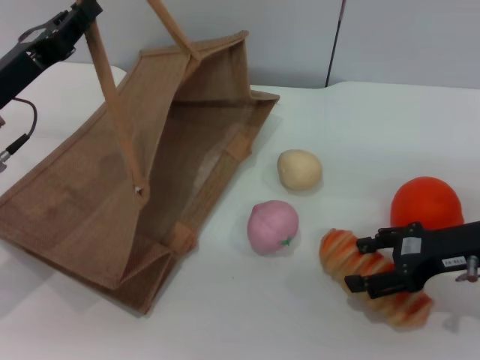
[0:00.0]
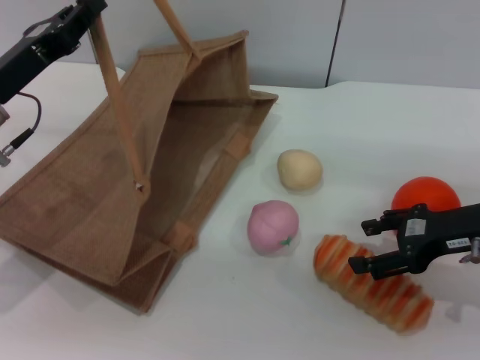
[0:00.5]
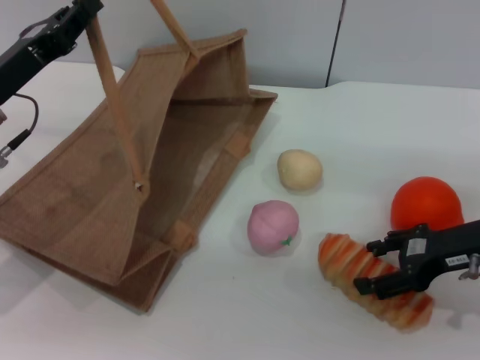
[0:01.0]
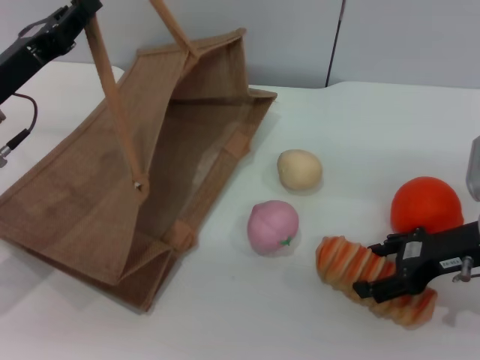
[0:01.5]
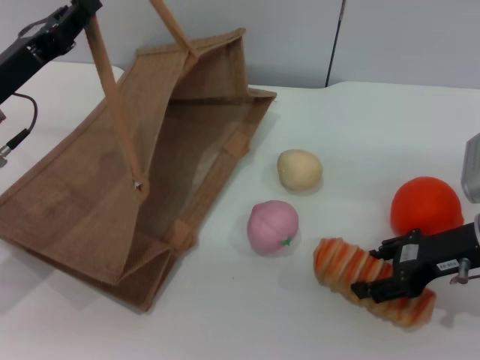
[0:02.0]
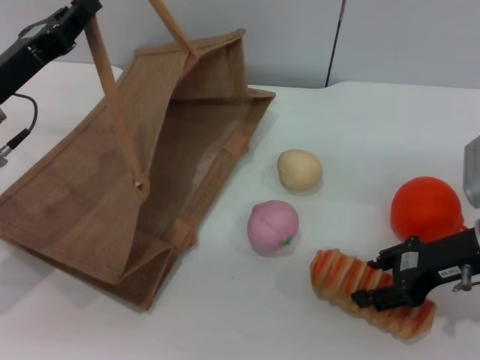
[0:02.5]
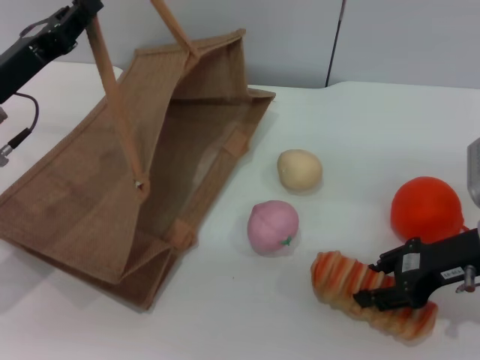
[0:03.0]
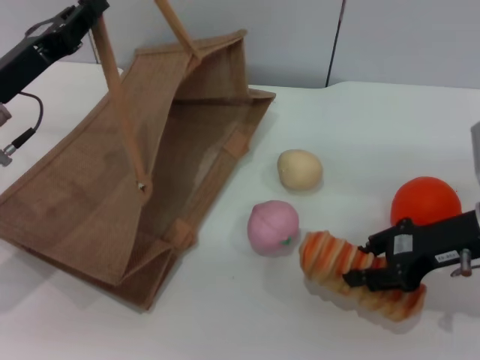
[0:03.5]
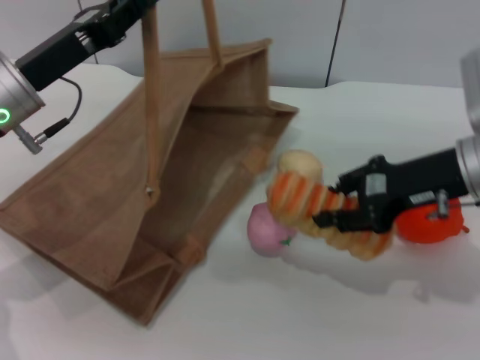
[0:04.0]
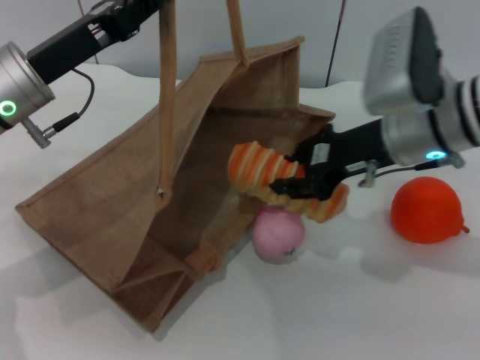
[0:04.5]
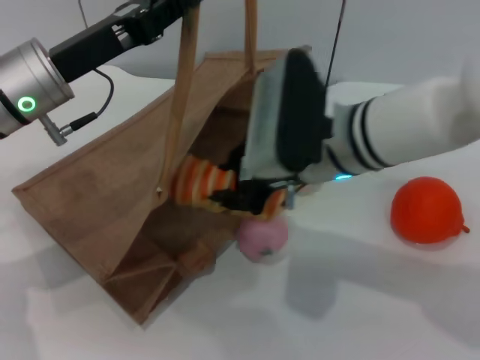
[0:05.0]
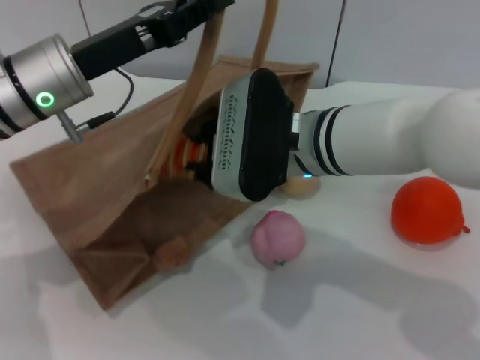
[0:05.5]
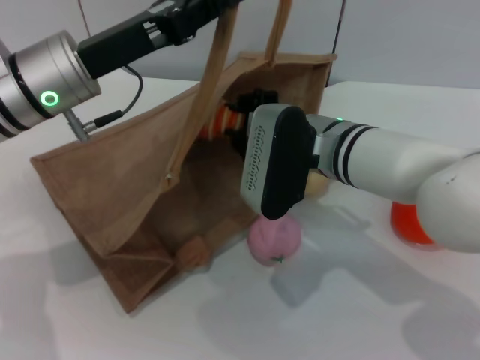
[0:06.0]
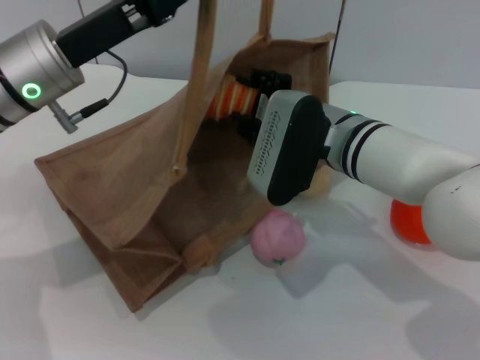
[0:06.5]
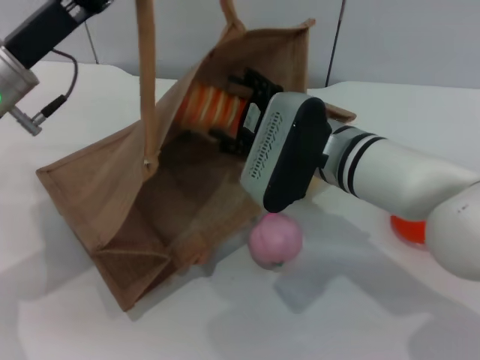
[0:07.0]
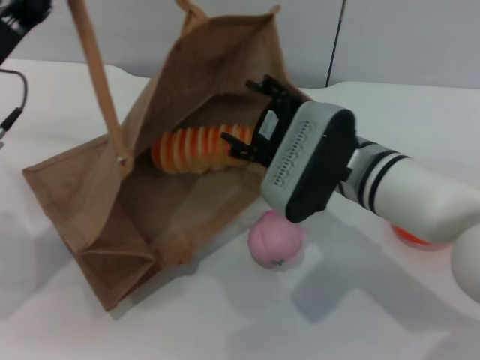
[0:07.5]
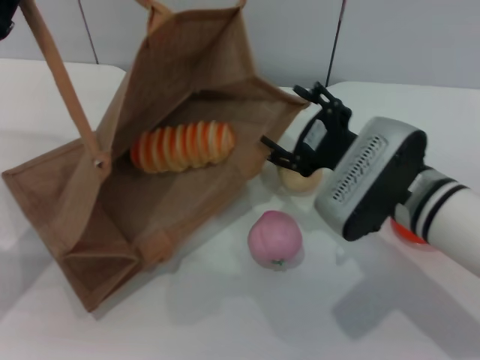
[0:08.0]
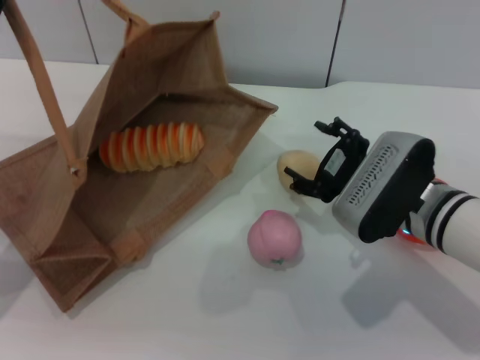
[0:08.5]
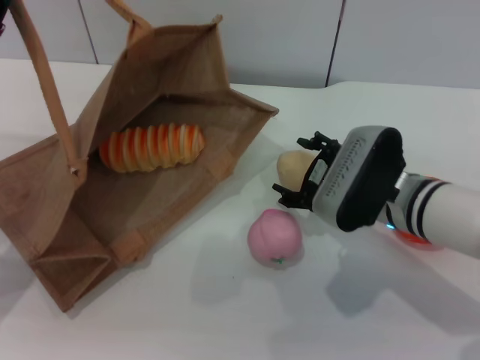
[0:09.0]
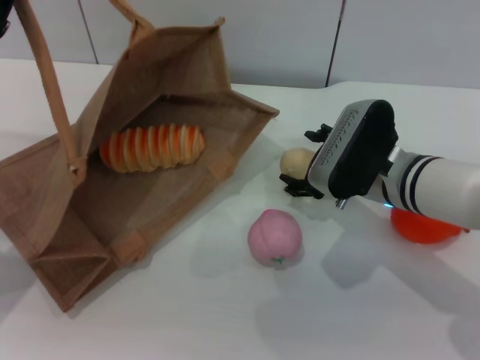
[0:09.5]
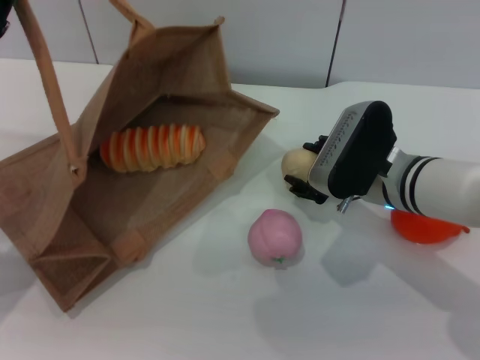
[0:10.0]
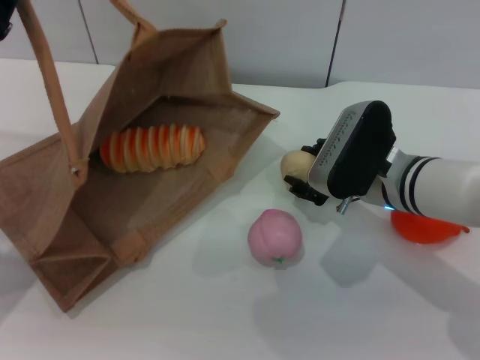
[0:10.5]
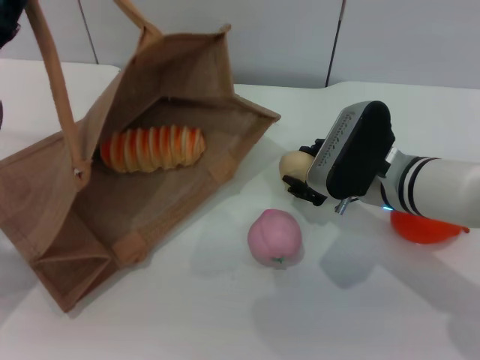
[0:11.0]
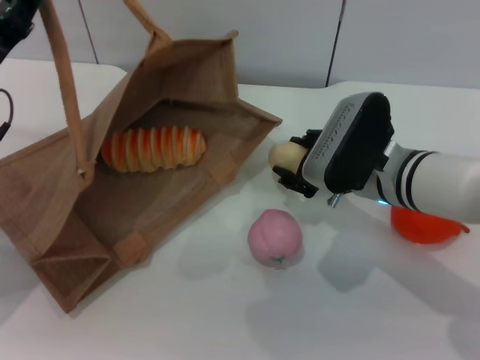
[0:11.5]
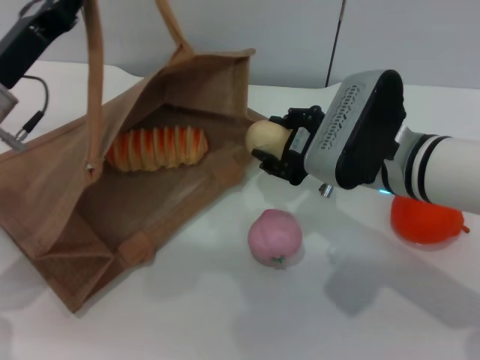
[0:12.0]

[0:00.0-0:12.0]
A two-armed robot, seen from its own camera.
Task of the whole recording: pick up the bread and egg yolk pastry from the table and place it in the brown handbag.
Step, 0:00.0 to 0:03.0: Pick up the bread with the right gripper.
Step, 0:03.5 to 0:07.5: Place the bread into the woven bag with the right gripper.
Step, 0:08.0 to 0:11.5: Pick up the egg yolk pastry with the right gripper.
0:00.0 to 0:02.0: There are only small adjustments of the grippers.
0:02.0 to 0:04.0: The right gripper shifts approximately 5 cm upward, and closes up.
0:04.0 to 0:06.0: The left gripper shifts approximately 5 cm to the right; the right gripper travels to the left by about 15 cm.
0:06.0 to 0:08.0: The right gripper moves to the right, roughly 5 cm, and opens up, while the left gripper heads to the left, covering some 10 cm.
0:08.0 to 0:10.0: The right gripper moves approximately 5 cm.
0:10.0 to 0:12.0: The right gripper goes some 5 cm upward.

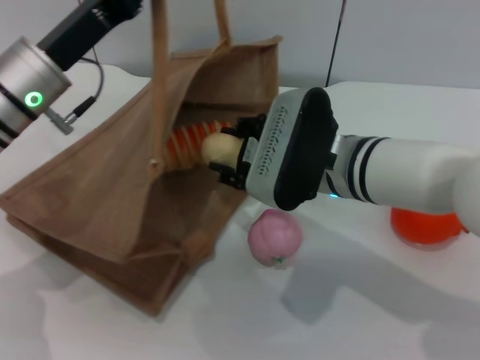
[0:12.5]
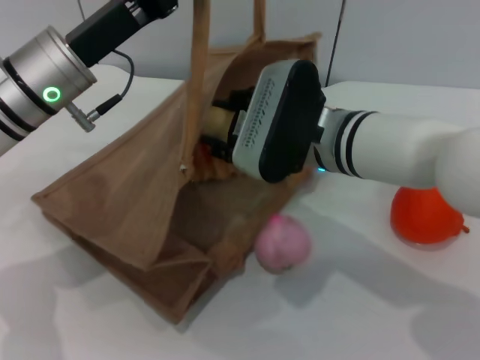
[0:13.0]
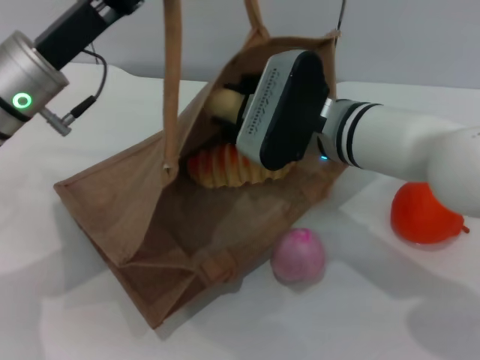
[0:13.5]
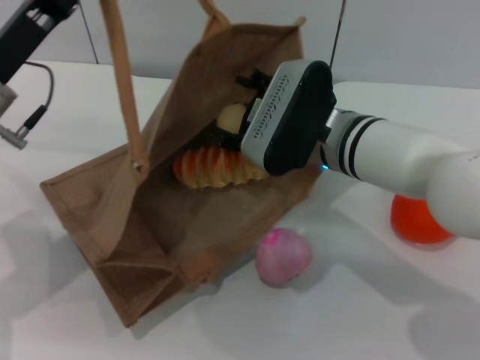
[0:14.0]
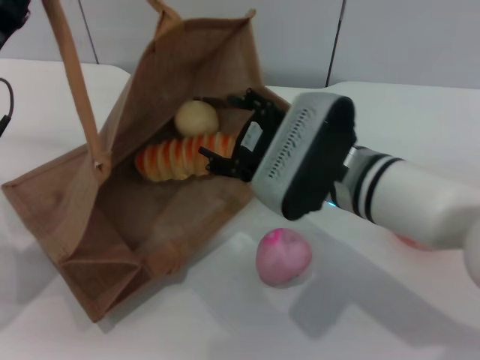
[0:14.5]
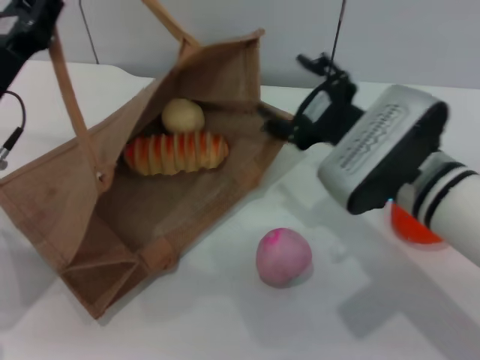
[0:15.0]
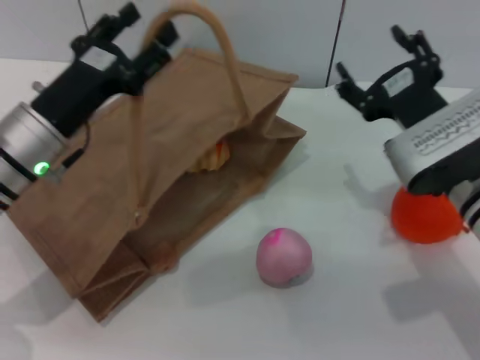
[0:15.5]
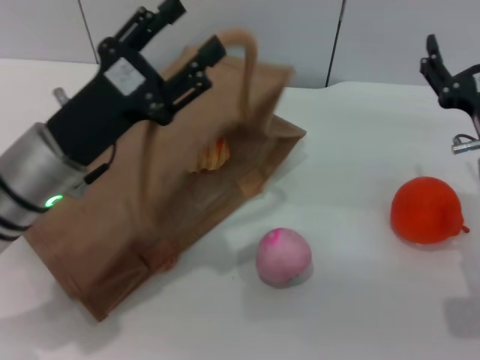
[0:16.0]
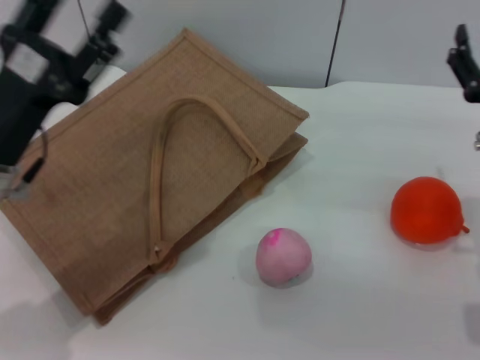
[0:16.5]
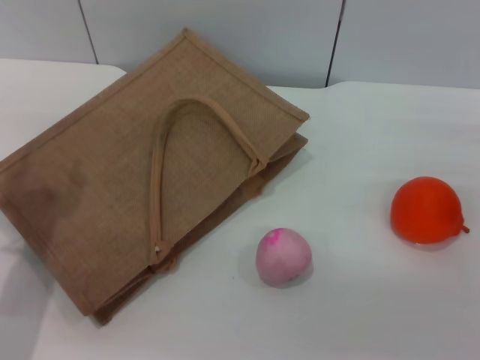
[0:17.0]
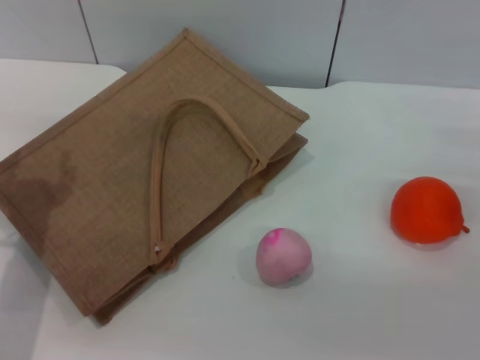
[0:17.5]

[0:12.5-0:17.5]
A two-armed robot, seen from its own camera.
Task of the whole recording: pick up the bread and egg yolk pastry from the table and place it in the brown handbag.
Step, 0:12.5 to 0:14.0: Place the egg yolk pastry into the woven bag with the right gripper.
Step, 0:14.5 to 0:16.0: Lower the woven bag with the left gripper to close it.
0:12.5 to 0:15.0: The right gripper travels to the right by roughly 5 cm, and opens. The left gripper is displaced to the left by roughly 5 cm.
0:15.0 to 0:17.5: The left gripper goes to the right and returns, approximately 10 cm each way, and opens its fingers. Meanwhile the right gripper goes roughly 15 cm to the right.

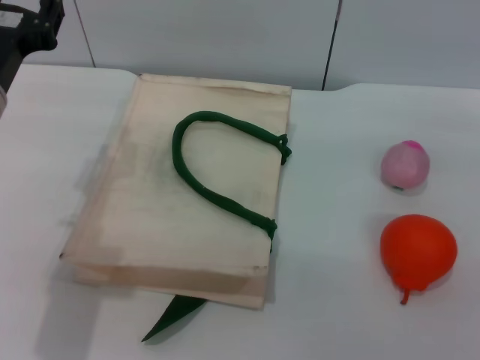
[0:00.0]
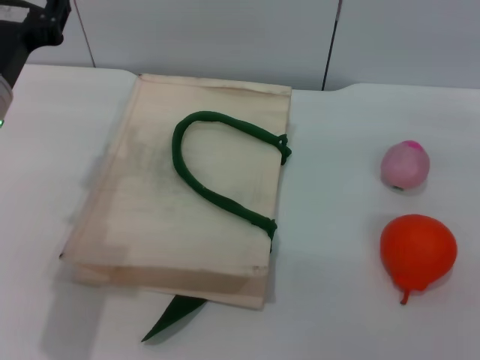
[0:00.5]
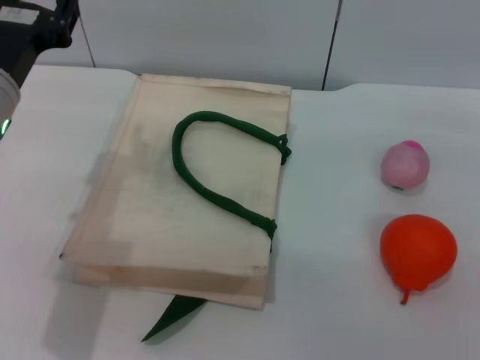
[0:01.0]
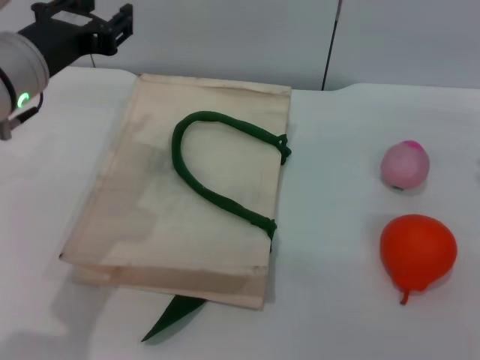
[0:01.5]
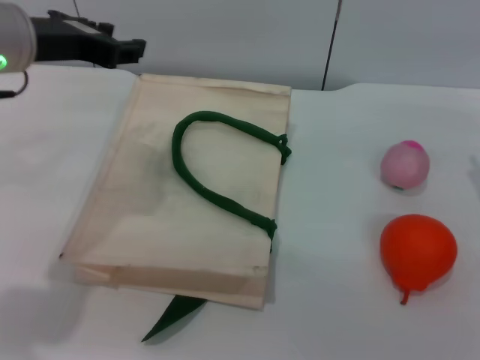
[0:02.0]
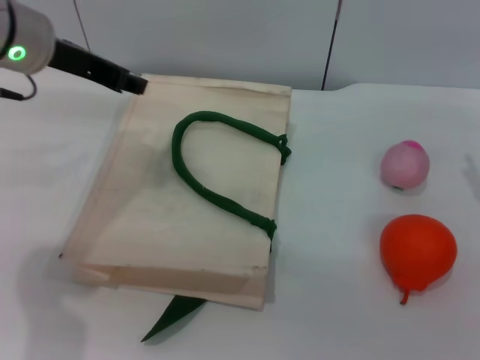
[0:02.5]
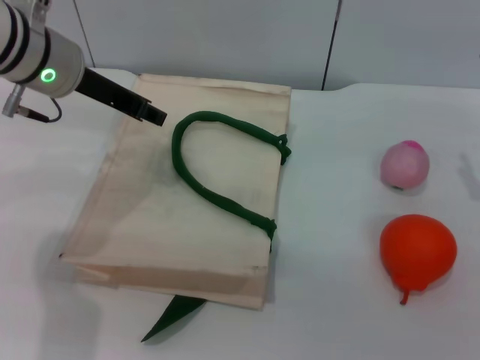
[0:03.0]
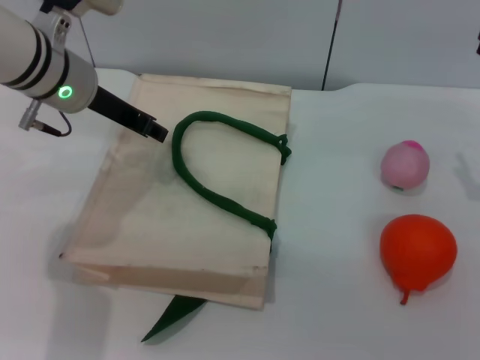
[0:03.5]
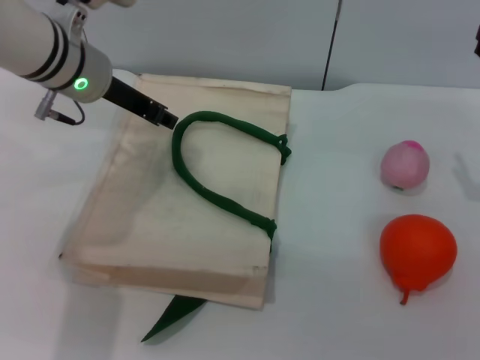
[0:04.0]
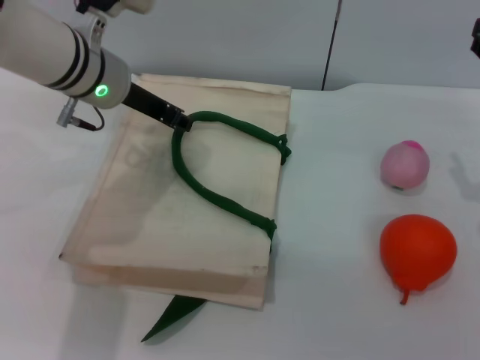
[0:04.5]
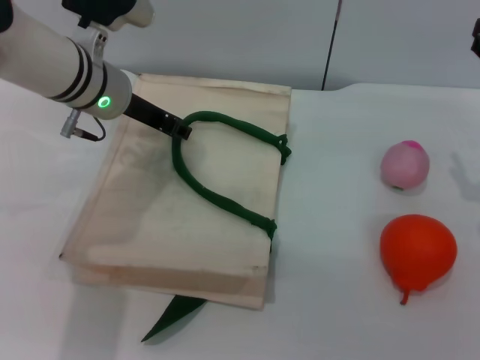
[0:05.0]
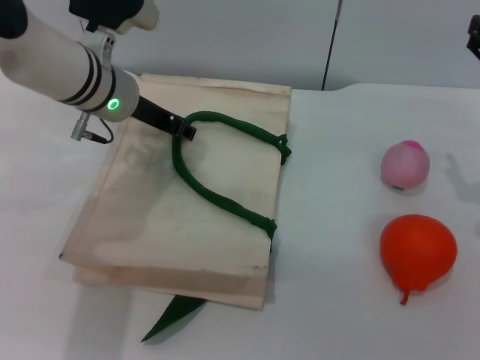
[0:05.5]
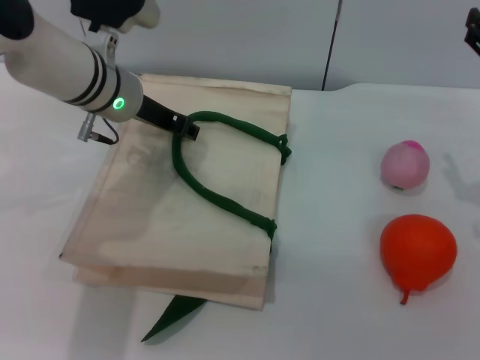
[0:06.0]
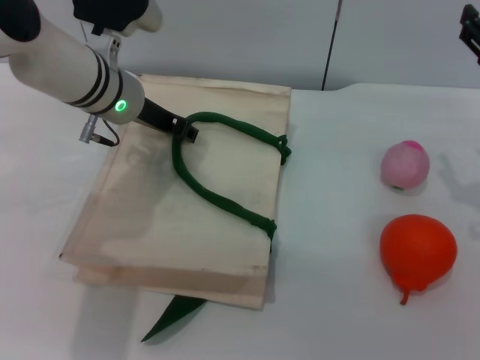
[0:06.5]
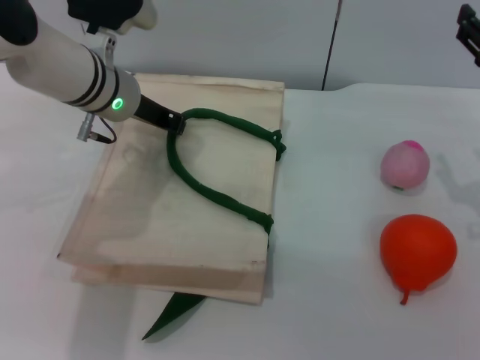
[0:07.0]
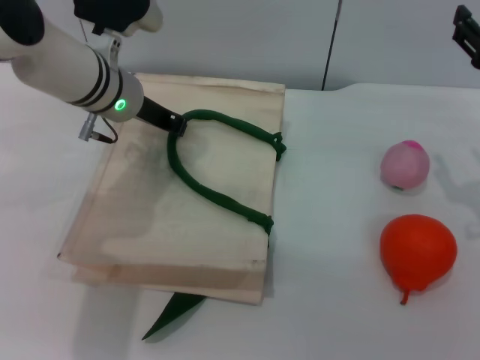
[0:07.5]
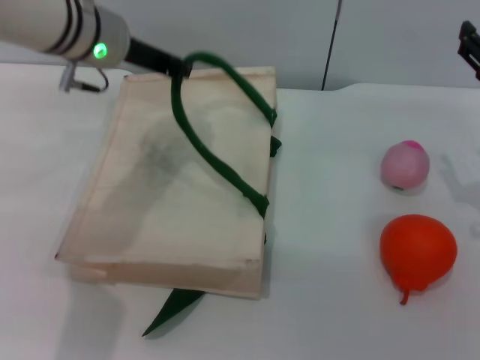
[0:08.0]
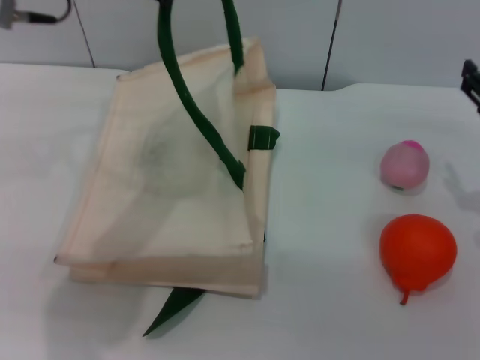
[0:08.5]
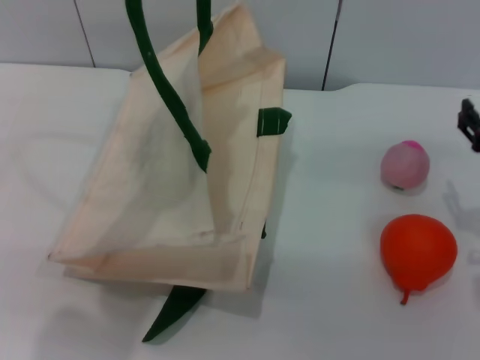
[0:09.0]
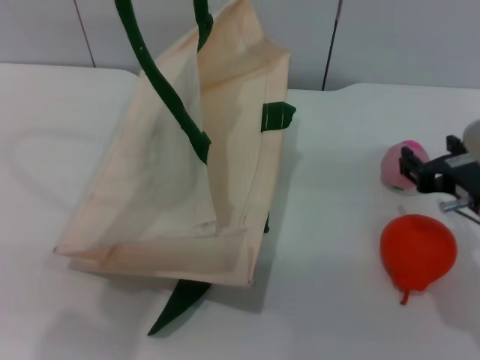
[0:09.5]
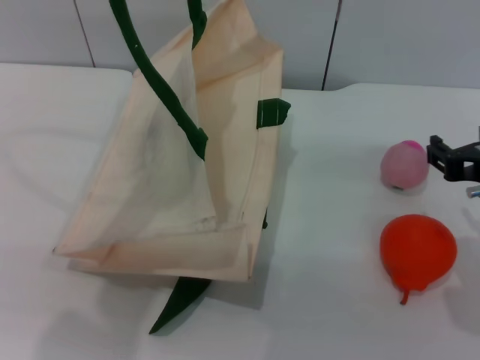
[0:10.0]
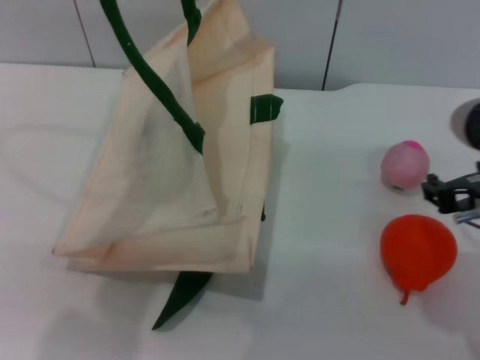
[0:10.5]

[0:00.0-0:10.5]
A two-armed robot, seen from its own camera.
Task of the whole recording: pick up the orange and peach from the table and place it in the white handbag.
Step, 0:00.0 to 0:07.0: Lift the woven bag with the left gripper to open it.
0:00.0 to 0:02.0: The left gripper is displaced upward and forward by some 10 cm.
0:02.0 to 0:04.0: The left gripper travels forward and downward by roughly 10 cm.
0:04.0 to 0:06.5: The grippers move only a little.
0:06.5 to 0:08.5: The left gripper heads upward and backward, covering some 20 cm, and closes up.
0:08.5 to 0:10.5: The left gripper ends up some 5 cm from where it was; the right gripper moves to the left and backward, about 10 cm.
